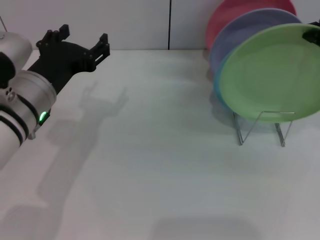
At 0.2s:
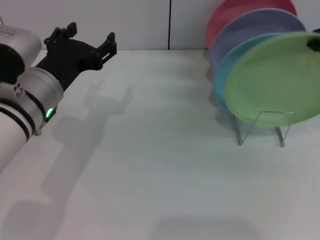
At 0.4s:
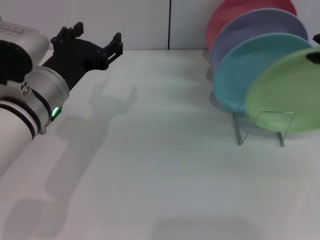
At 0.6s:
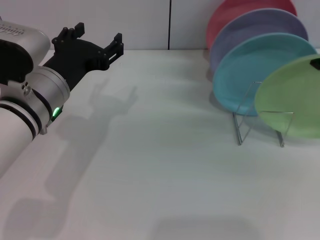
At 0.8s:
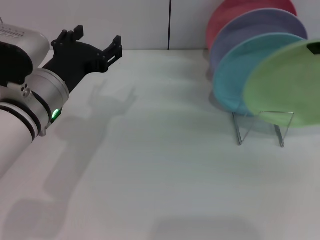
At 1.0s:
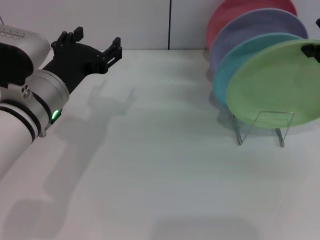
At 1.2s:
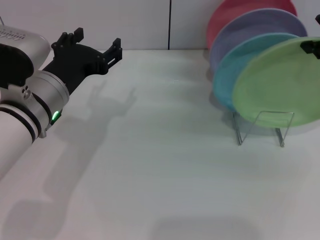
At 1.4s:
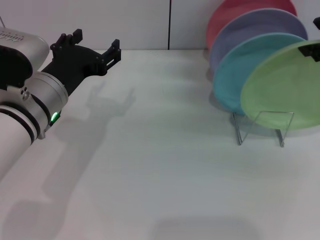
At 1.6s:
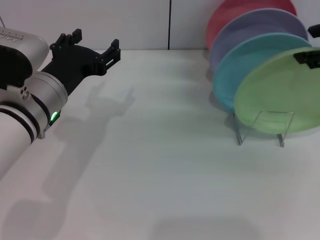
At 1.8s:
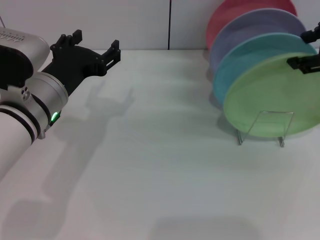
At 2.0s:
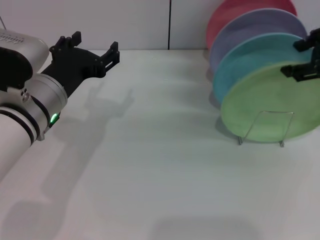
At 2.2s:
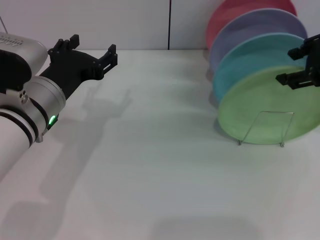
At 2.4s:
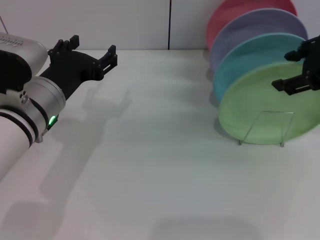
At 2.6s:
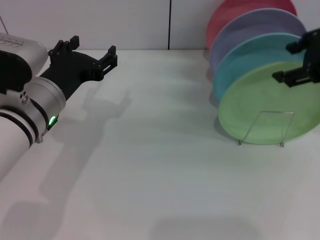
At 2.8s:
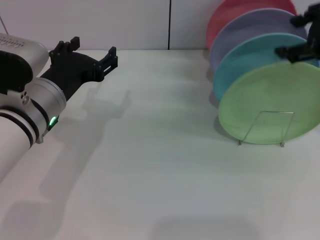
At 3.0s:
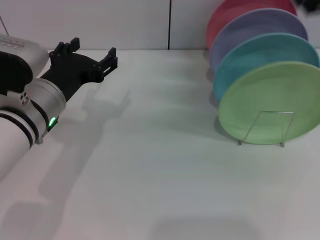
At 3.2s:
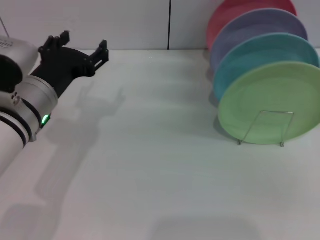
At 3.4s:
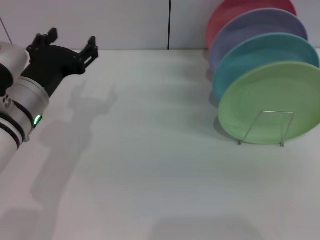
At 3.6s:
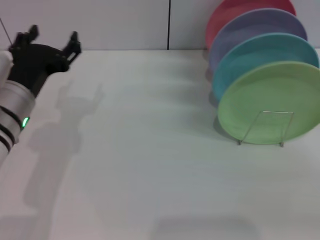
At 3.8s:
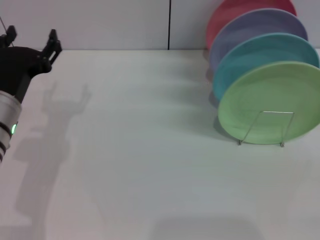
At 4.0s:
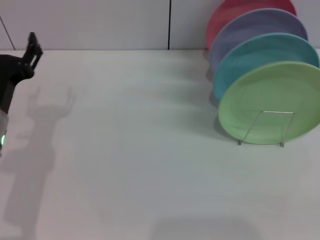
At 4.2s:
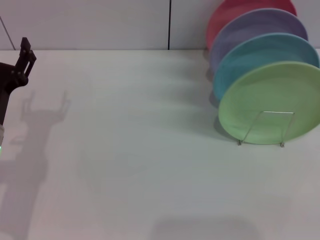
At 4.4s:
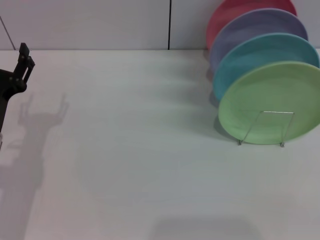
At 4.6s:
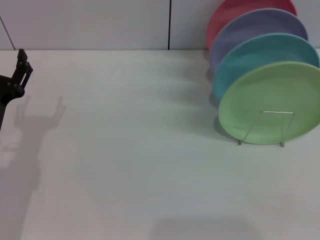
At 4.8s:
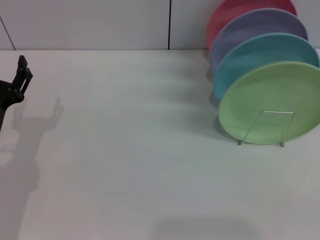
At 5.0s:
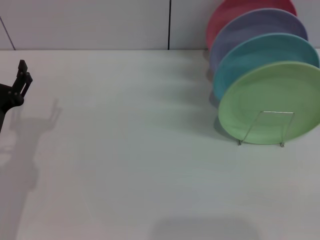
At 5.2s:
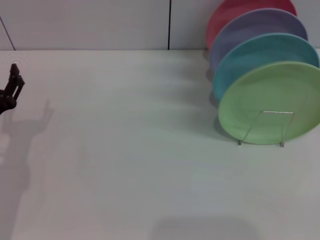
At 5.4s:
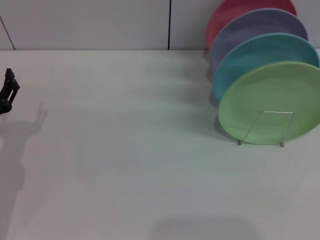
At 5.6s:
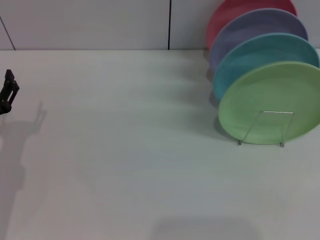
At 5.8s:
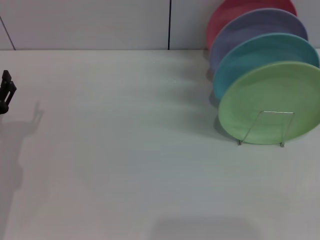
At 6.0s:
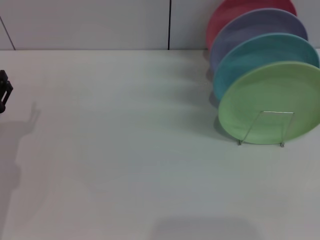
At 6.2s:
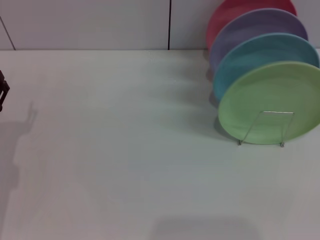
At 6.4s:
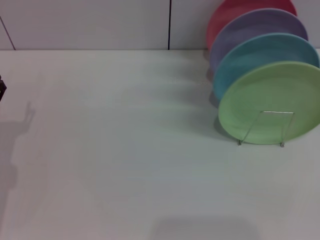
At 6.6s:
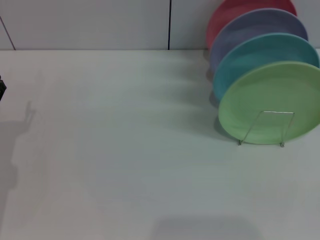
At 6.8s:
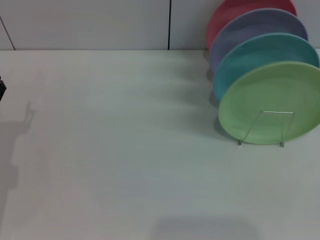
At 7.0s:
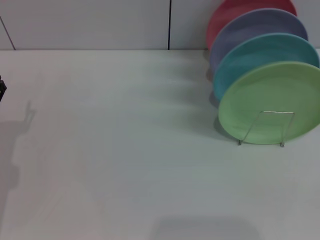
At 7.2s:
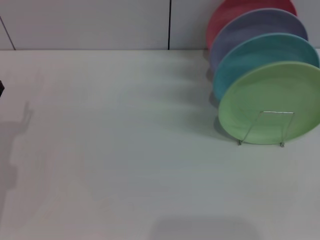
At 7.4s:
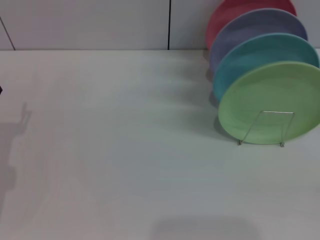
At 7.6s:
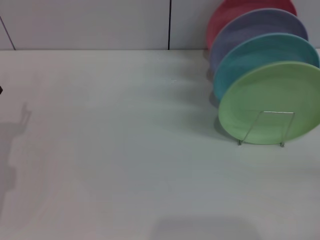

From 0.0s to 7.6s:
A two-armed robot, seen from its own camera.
Task of the whole recording: Grip the plate with one hand, pass it to the other, then set it on the shelf.
Step, from 0.0s to 2.8s: Place the plate on the shelf with the right gripper.
From 0.0s to 1.6s: The right gripper opens.
From 1.6s to 3.0s: The right gripper is displaced upward by some 5 cm.
From 3.0s to 4.6s: The left gripper goes some 10 cm to the left and downward, while the right gripper travels downward, backward and to the right by approximately 40 cm.
From 4.6s to 6.0s: The grippers move only a little.

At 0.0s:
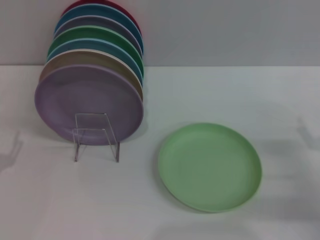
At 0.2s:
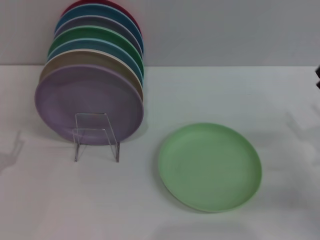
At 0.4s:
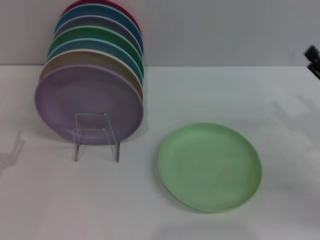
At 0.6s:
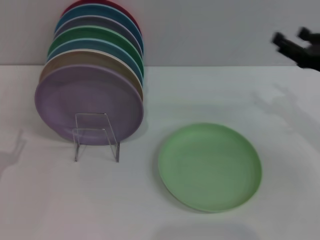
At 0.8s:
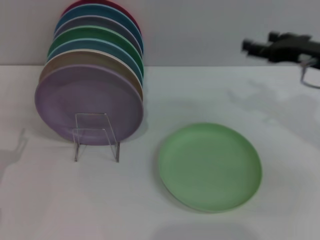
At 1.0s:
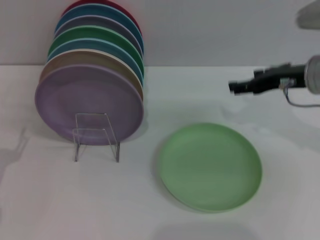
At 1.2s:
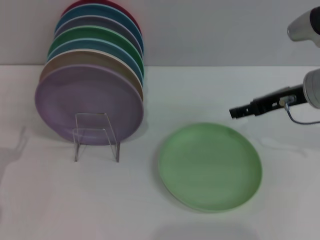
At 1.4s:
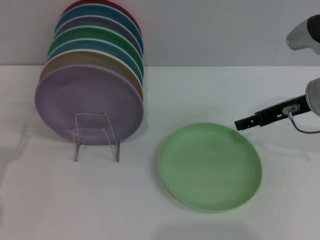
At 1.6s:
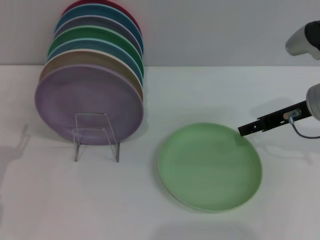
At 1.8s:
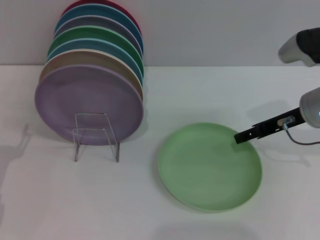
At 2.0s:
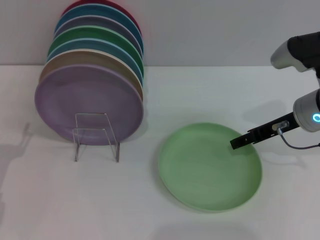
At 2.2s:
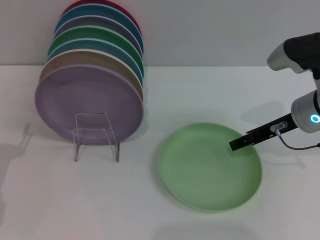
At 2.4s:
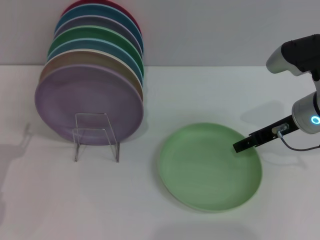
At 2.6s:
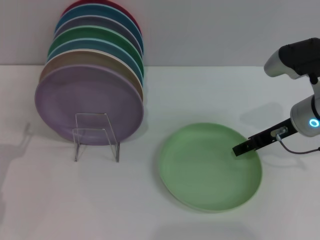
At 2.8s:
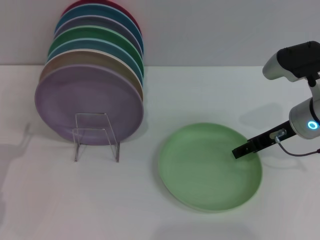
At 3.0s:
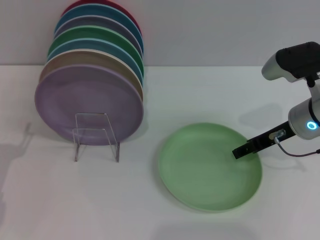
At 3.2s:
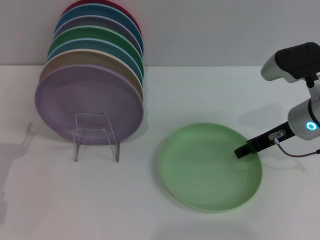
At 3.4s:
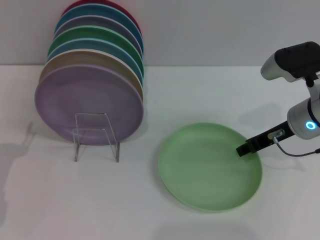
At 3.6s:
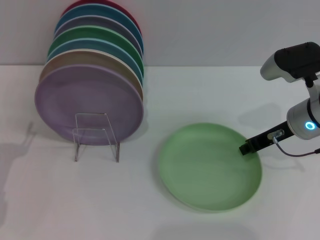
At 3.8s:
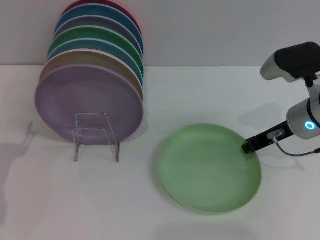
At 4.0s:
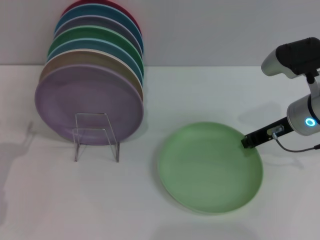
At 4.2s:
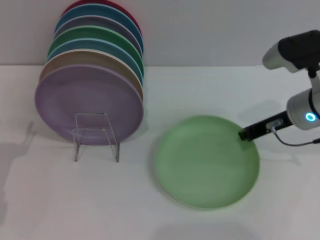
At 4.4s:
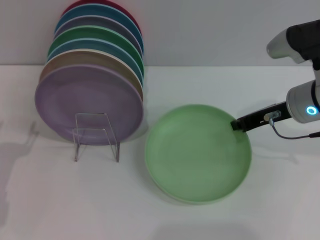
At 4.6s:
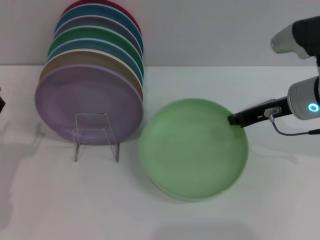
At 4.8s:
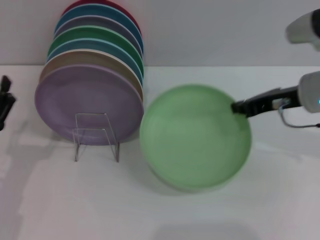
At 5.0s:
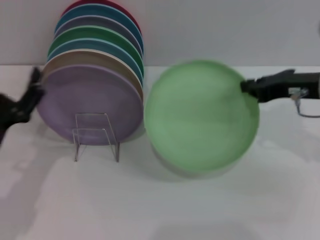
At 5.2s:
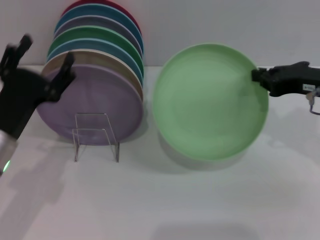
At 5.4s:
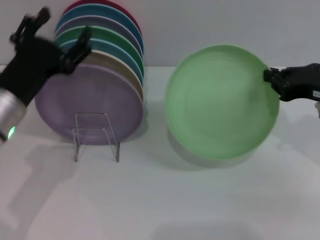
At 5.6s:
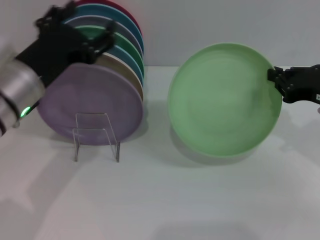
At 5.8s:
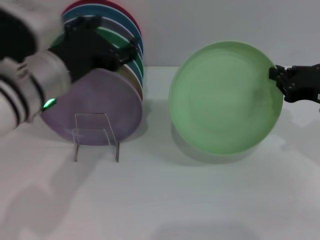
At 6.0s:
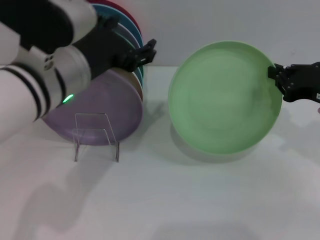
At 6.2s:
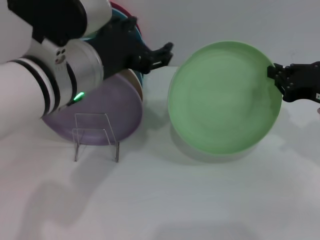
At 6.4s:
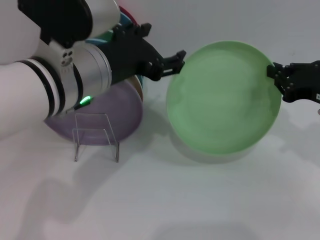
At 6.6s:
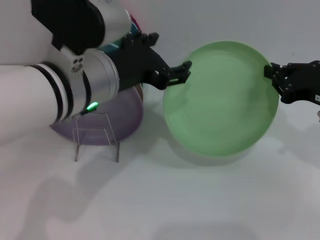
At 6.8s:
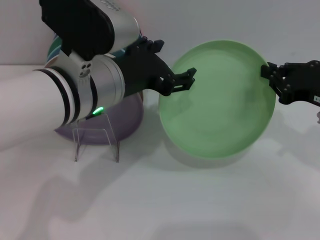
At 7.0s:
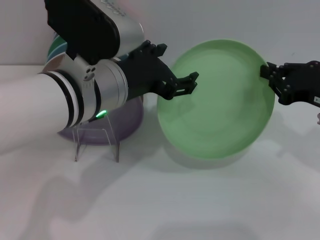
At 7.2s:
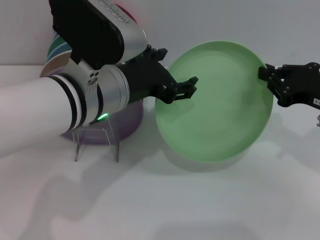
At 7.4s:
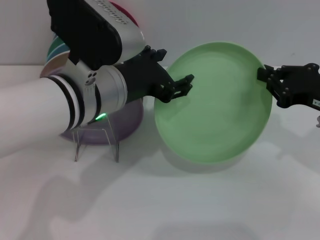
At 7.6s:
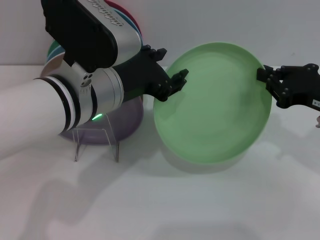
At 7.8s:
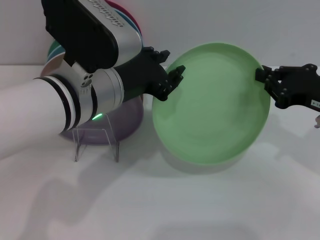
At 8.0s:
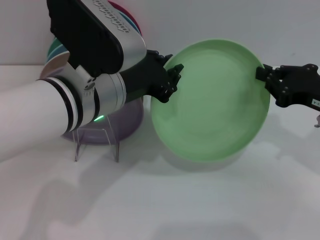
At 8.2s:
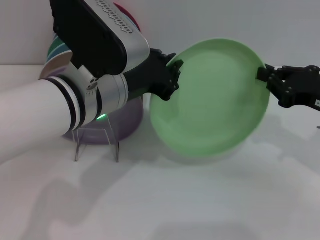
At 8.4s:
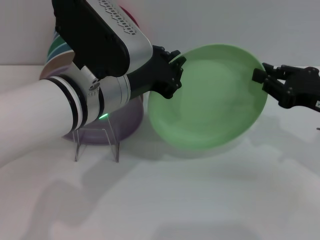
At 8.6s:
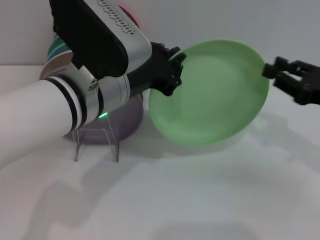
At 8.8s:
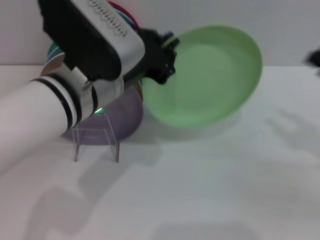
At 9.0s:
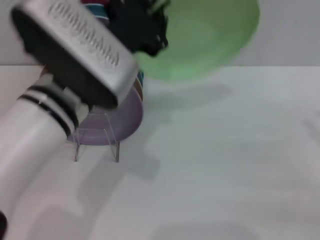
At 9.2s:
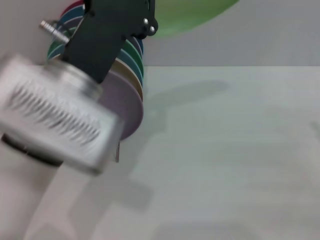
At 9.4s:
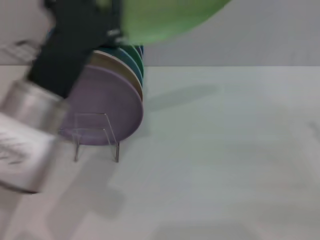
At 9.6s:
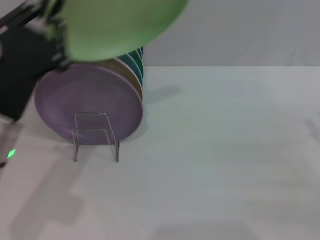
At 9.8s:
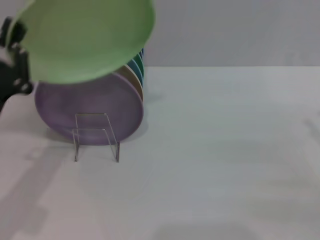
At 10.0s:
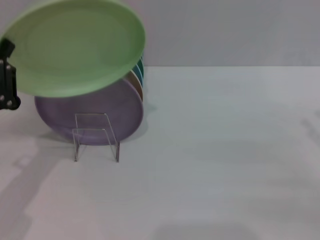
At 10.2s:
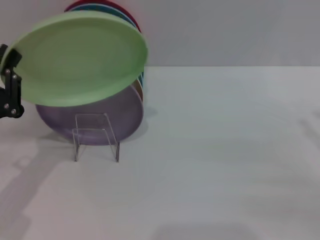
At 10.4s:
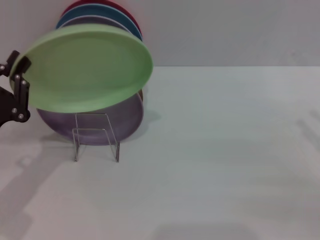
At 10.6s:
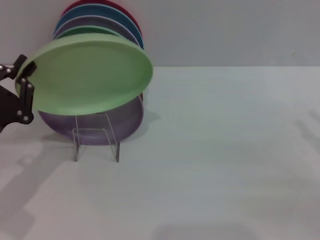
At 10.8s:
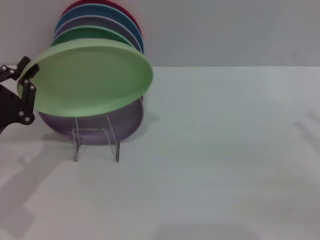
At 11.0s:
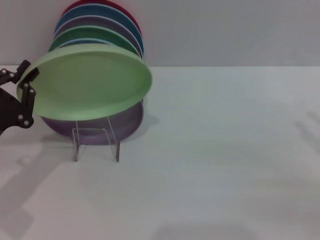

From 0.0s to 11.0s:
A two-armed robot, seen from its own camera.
Task of the whole recording: Grip the plate with one hand, pass it to the other, then set it on the shelf.
Step, from 0.0s to 4.8s: Pick up the plate with the right gripper.
Step, from 5.0s to 8.8s: Pass the plate from the right gripper to the left gripper.
From 0.0s to 1.6s: The right gripper is displaced forward, upward and to the left by approximately 20 cm.
From 1.6s to 3.2s: The grippers stay close to where they were, moving slightly.
From 3.2s to 4.8s: The right gripper is displaced upward by some 5 cm, and closes.
From 4.8s to 6.2s: The right gripper moves to the right, approximately 5 cm, while the left gripper heads upward, to the right and forward, covering some 25 cm.
From 6.2s to 7.8s: The grippers stay close to where they were, moving slightly.
From 7.8s to 9.4s: The right gripper heads to the right and backward, covering some 15 cm, and opens its fingers. The left gripper moves about 5 cm, and closes its fingers.
From 9.4s to 11.0s: The left gripper moves to the left and downward, roughly 15 cm.

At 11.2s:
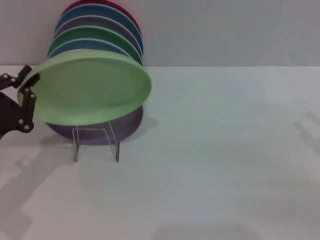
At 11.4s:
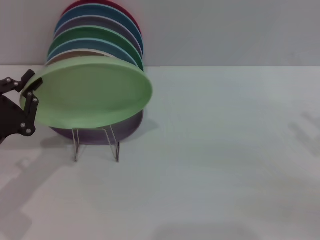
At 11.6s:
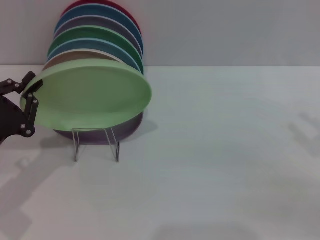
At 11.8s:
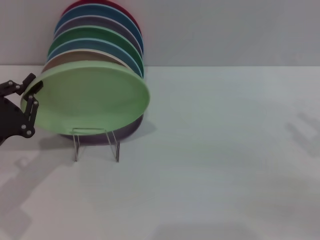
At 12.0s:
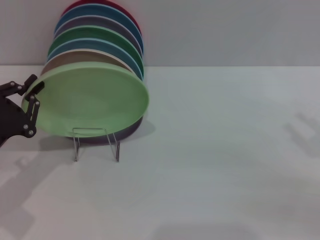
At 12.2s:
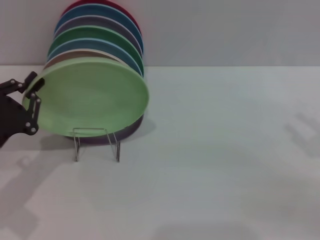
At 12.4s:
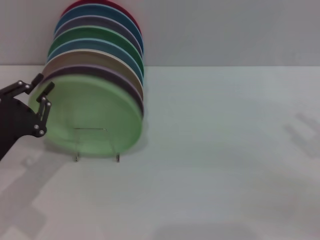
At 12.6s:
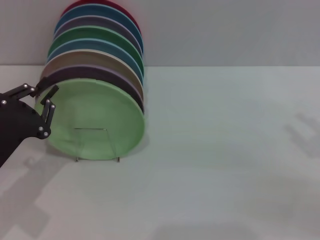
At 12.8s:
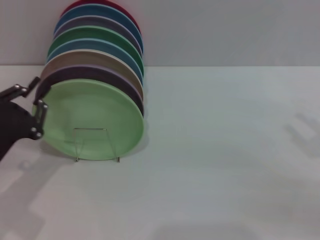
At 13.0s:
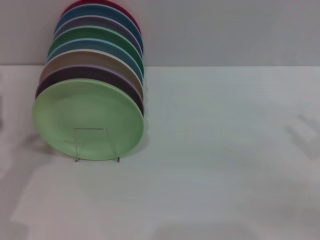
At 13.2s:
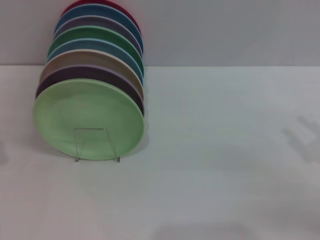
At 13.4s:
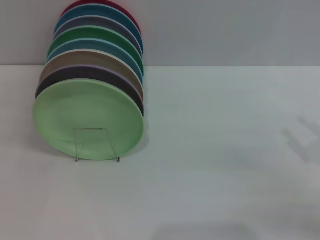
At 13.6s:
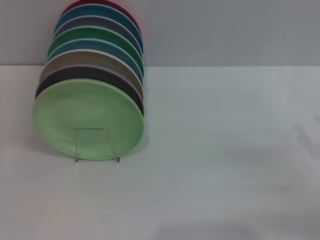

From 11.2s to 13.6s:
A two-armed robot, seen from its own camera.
Task of the whole recording: Grip the plate with one hand, pass it to the other, then set it on the shelf.
From 11.2s to 12.4s: The grippers move only a little.
From 12.4s to 13.6s: The left gripper heads to the left, covering some 5 cm.

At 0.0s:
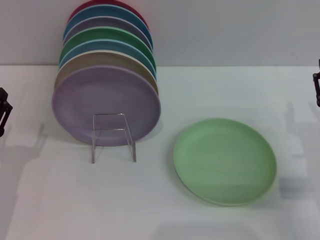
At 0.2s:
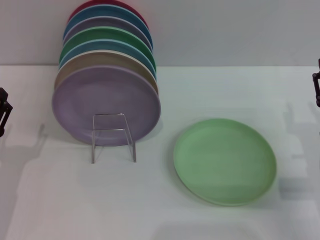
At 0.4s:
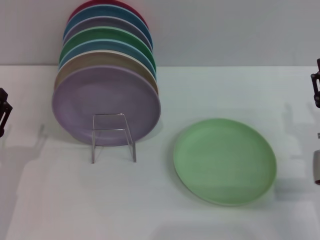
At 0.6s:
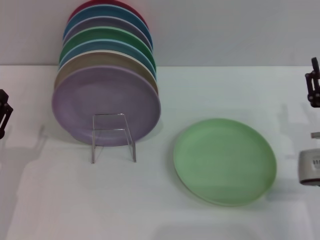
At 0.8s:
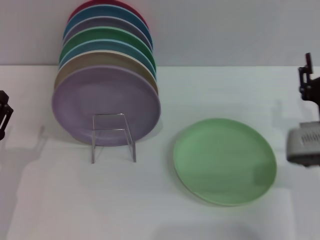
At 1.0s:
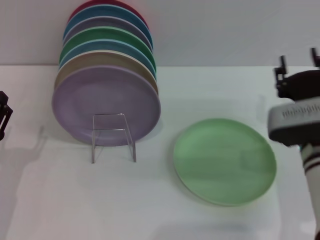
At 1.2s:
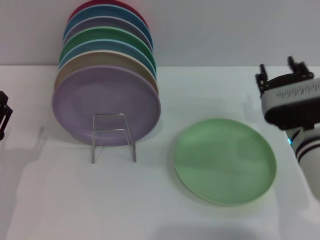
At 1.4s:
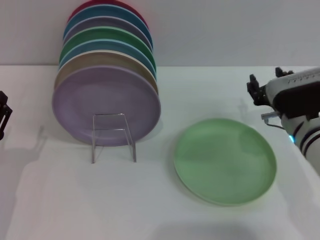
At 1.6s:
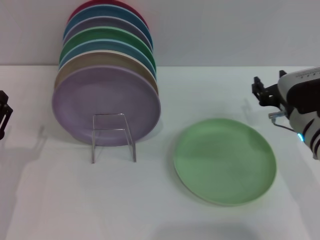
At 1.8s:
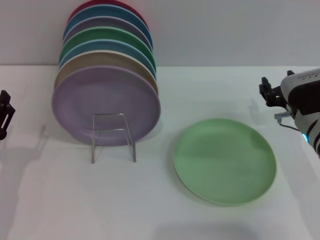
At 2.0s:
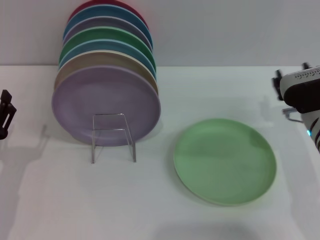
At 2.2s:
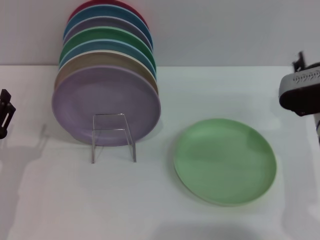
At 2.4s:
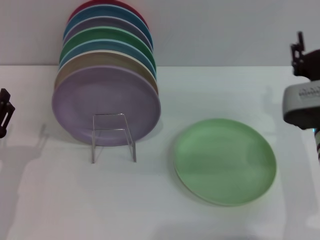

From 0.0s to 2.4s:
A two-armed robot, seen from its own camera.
Task of the whole recording: Grip the plate with one hand, pass it to the other, then set it on the shelf.
From 0.0s to 1.2s: The right gripper shifts about 10 cm to the left and forward.
From 1.2s to 2.4s: The grippers make only small movements.
